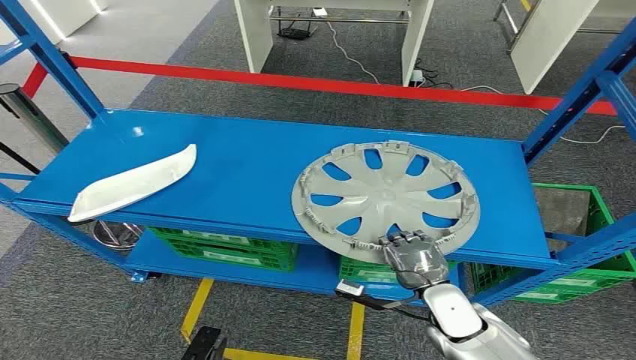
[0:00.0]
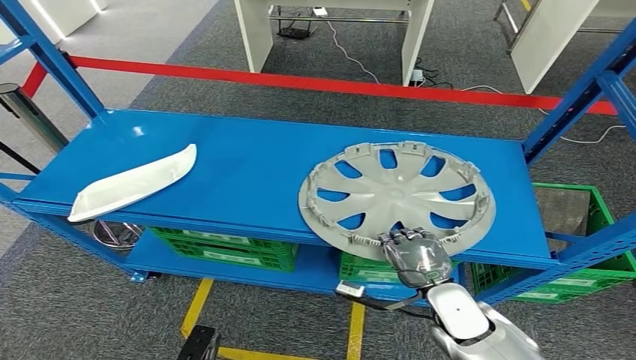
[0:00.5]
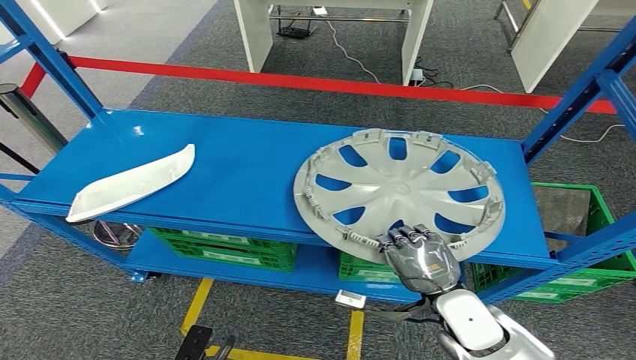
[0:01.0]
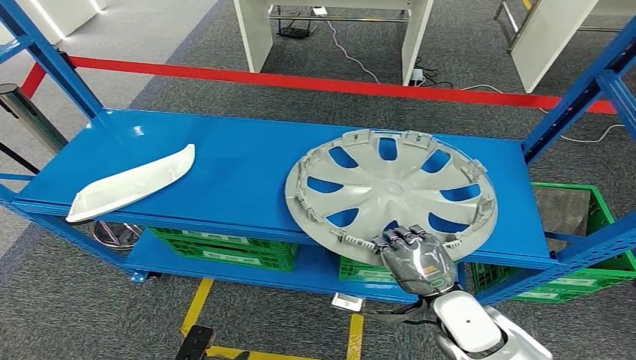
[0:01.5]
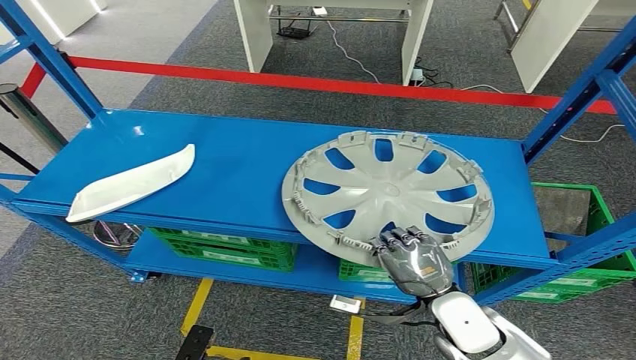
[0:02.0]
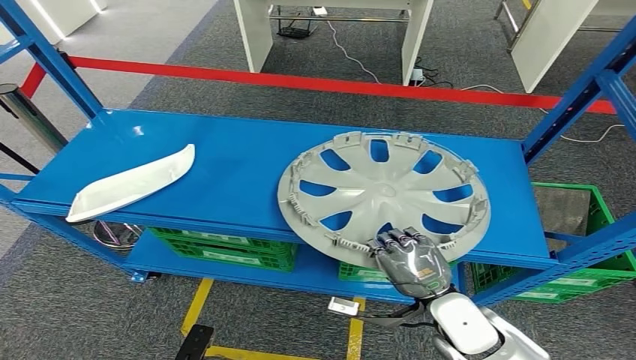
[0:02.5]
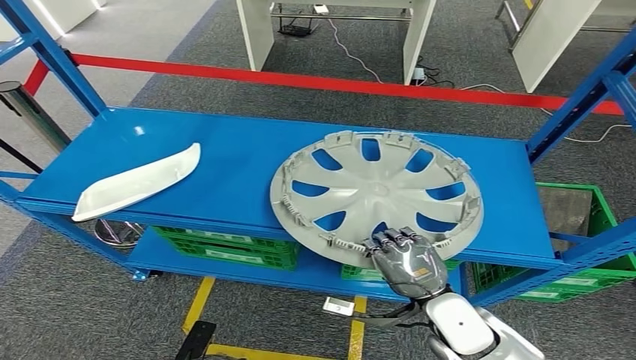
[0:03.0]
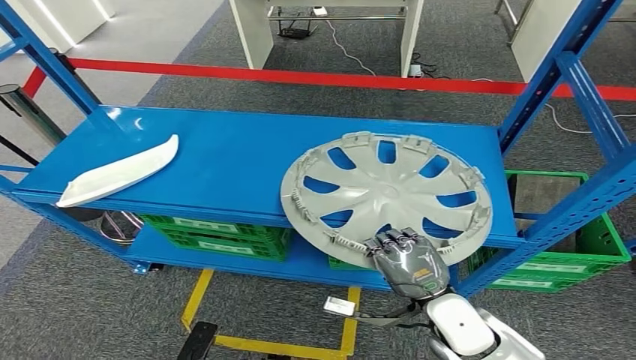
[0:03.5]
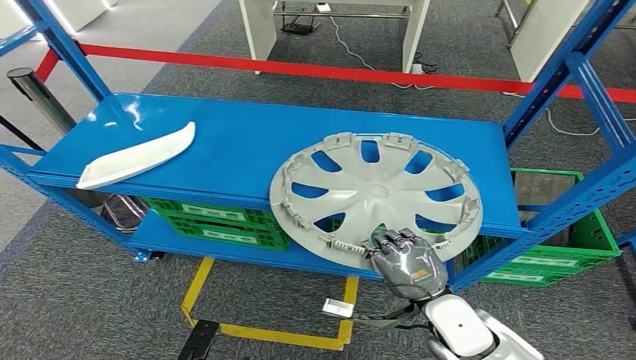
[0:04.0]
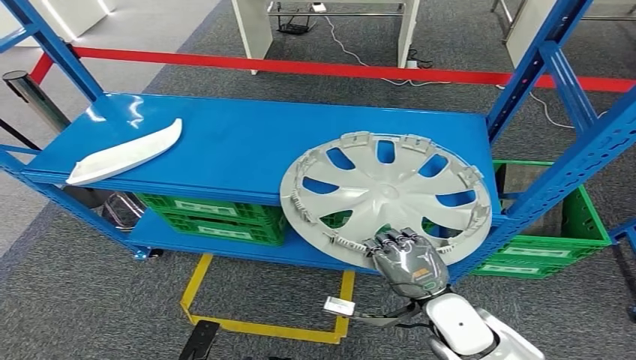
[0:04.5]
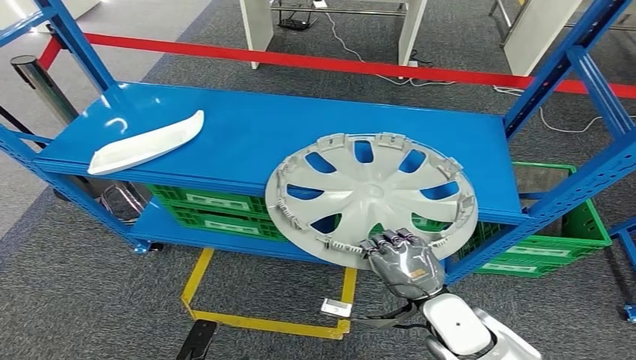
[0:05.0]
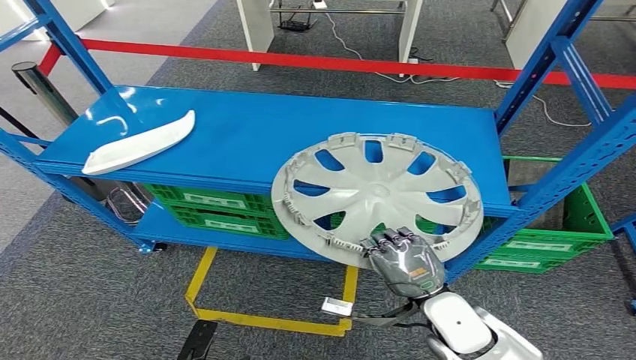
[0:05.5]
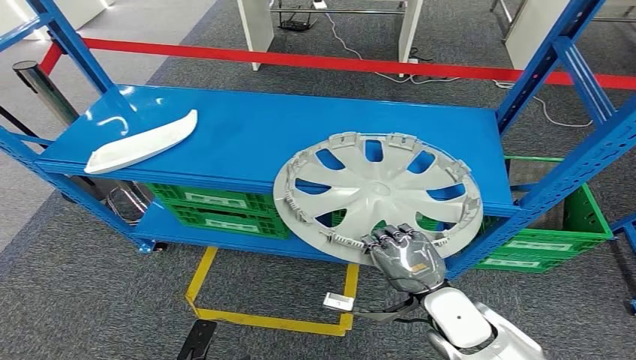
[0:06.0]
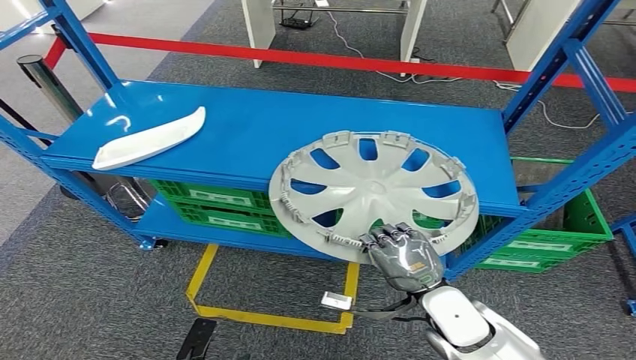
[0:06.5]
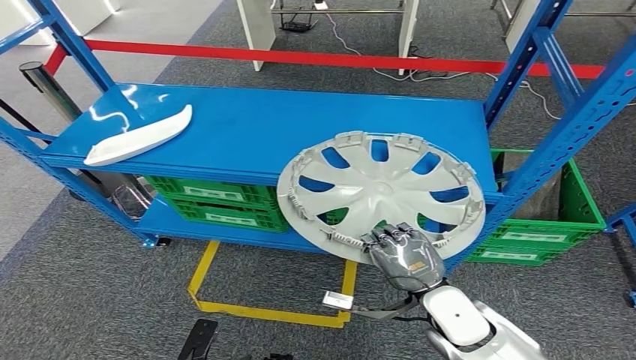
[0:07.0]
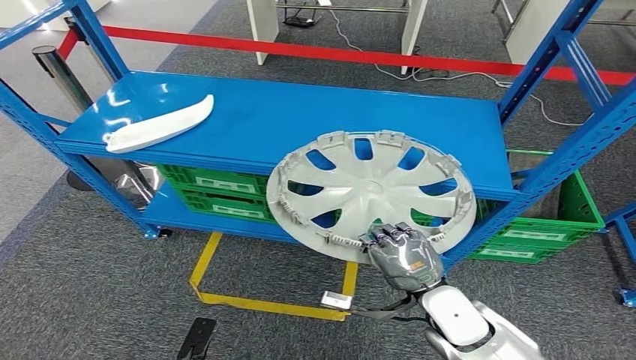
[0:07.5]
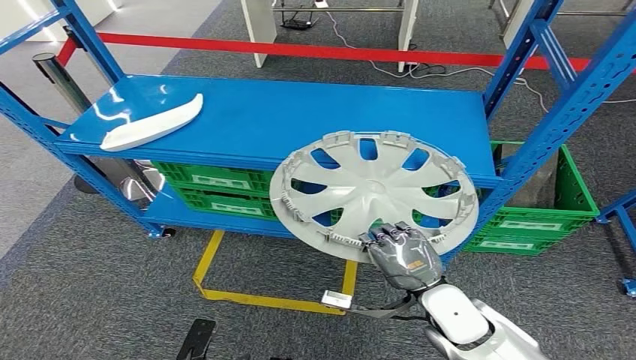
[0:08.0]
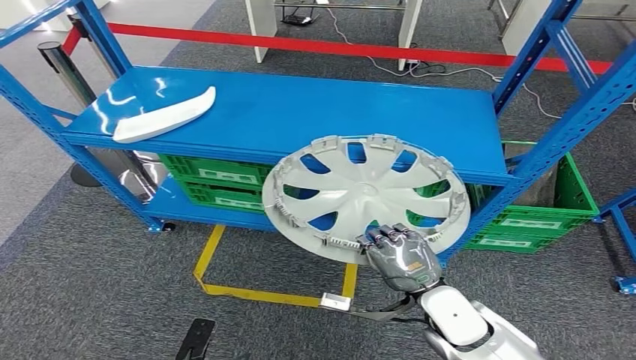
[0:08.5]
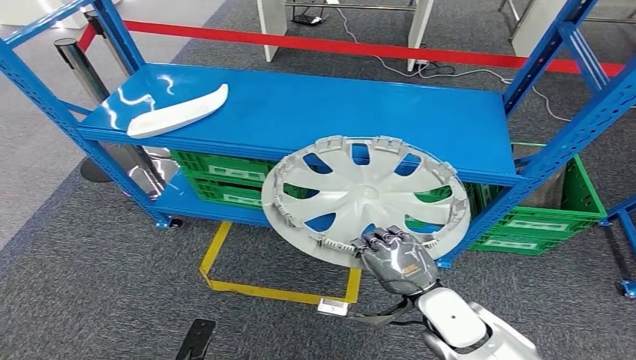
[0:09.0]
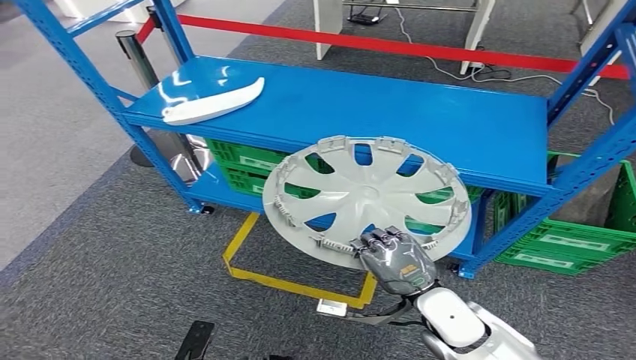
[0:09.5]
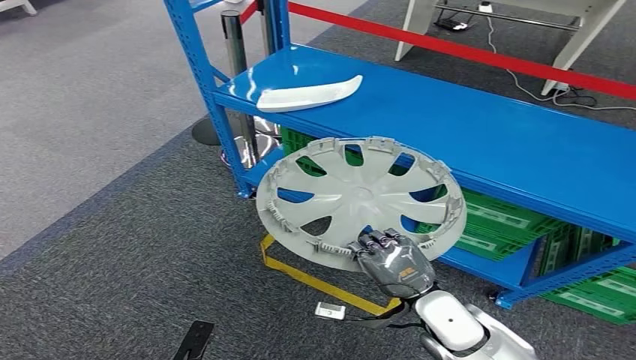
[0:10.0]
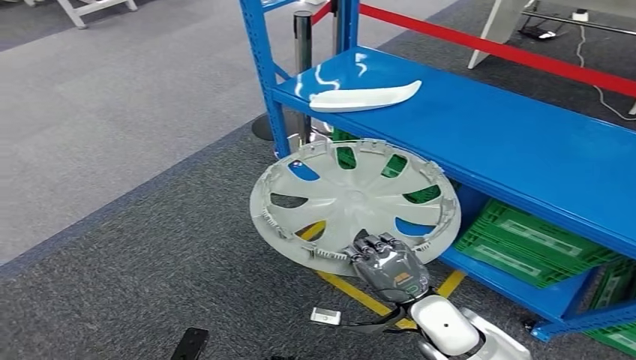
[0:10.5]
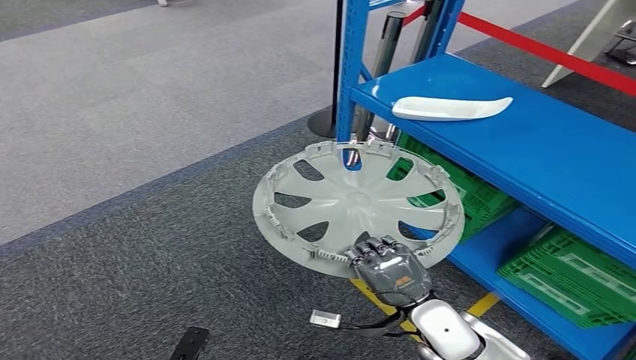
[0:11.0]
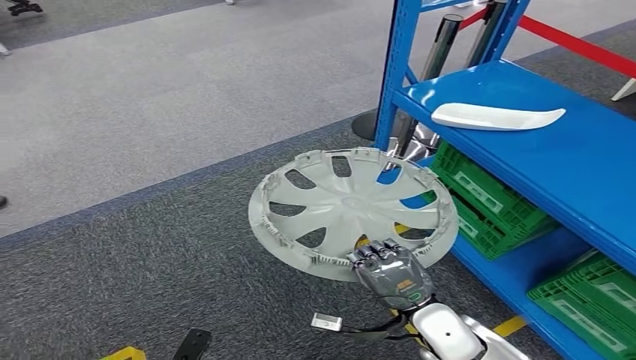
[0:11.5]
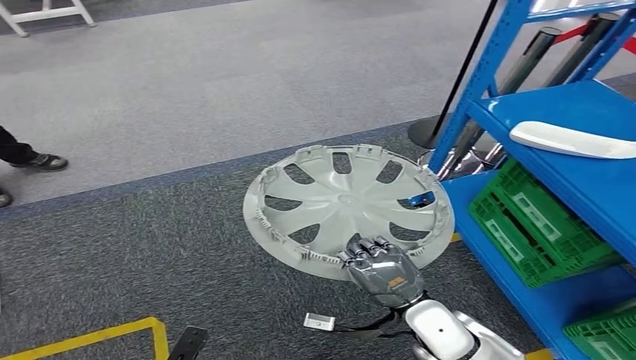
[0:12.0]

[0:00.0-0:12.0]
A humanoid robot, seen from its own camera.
Step, 0:00.0 to 0:11.5: Take small components from the rack.

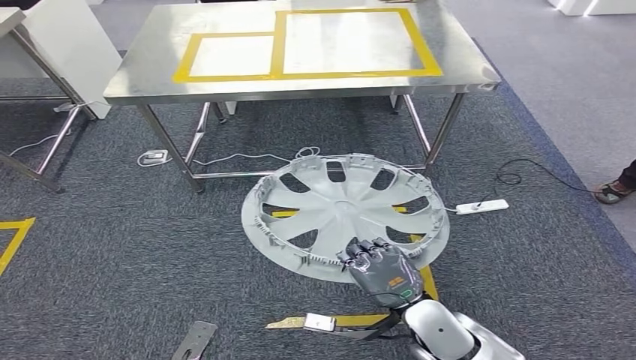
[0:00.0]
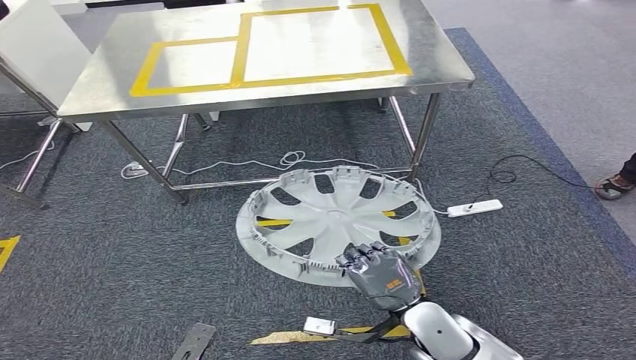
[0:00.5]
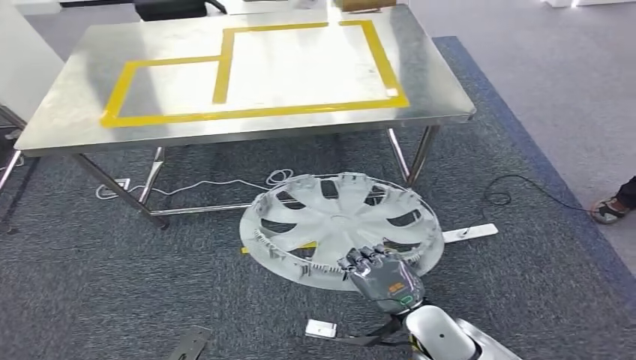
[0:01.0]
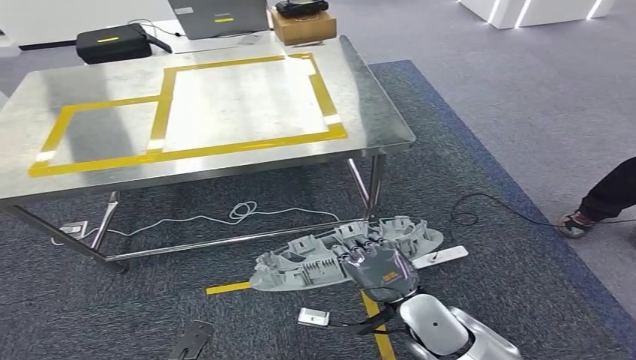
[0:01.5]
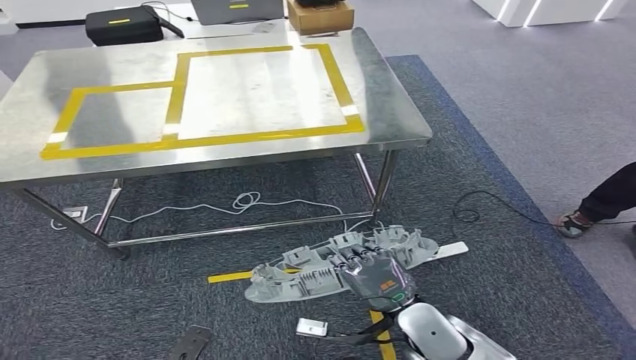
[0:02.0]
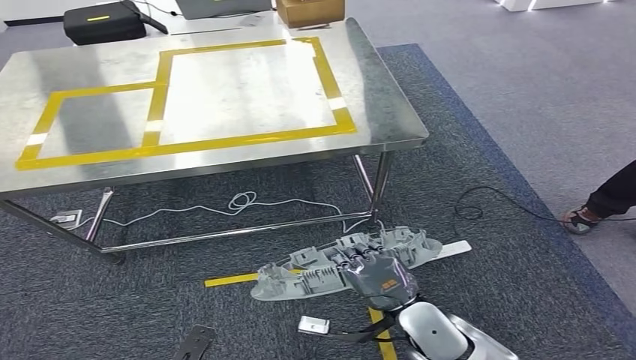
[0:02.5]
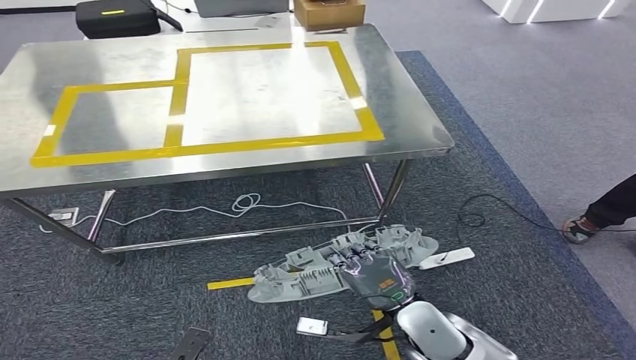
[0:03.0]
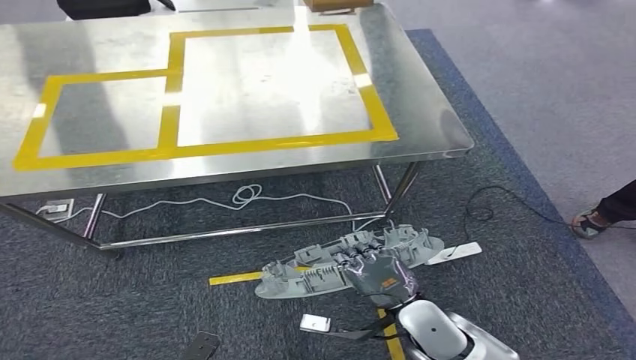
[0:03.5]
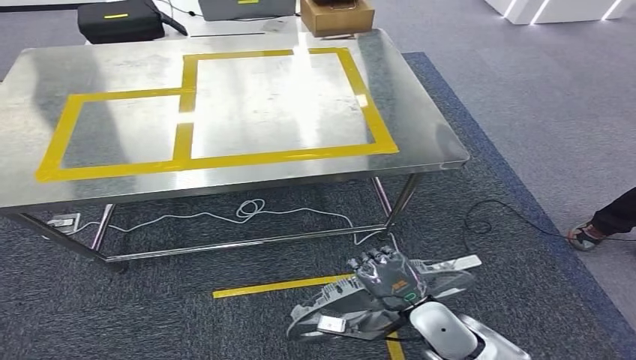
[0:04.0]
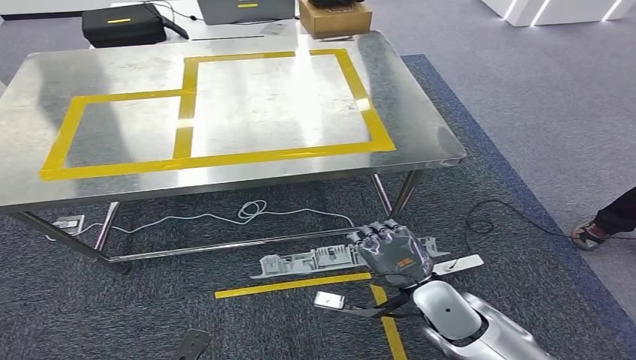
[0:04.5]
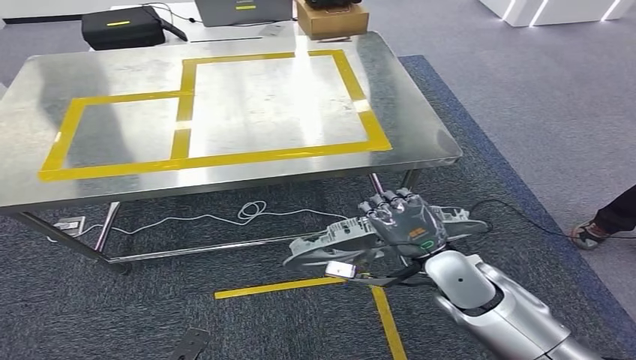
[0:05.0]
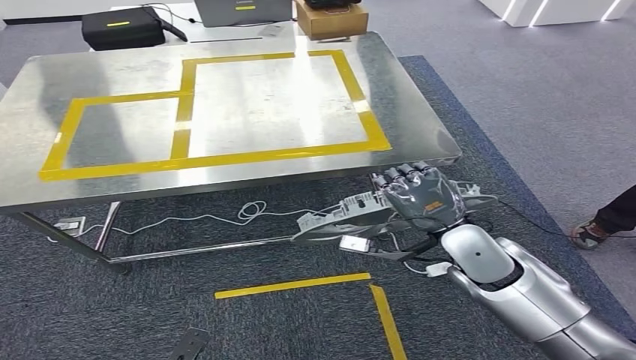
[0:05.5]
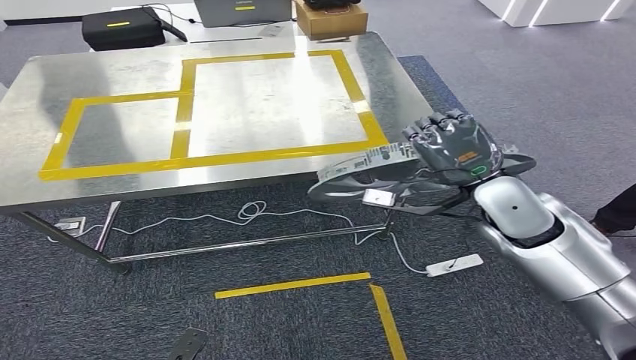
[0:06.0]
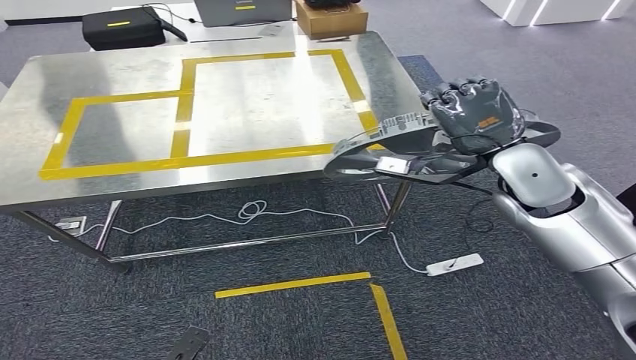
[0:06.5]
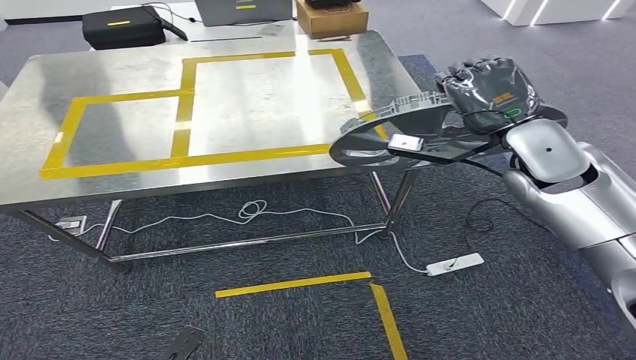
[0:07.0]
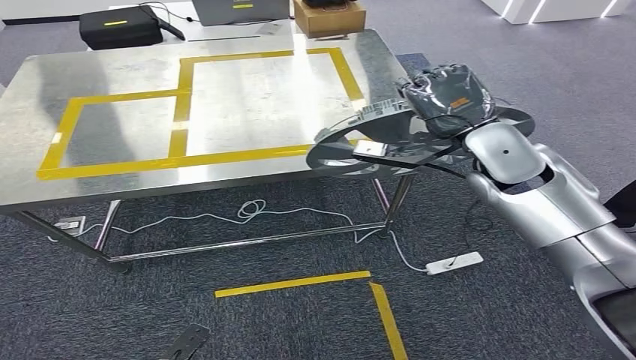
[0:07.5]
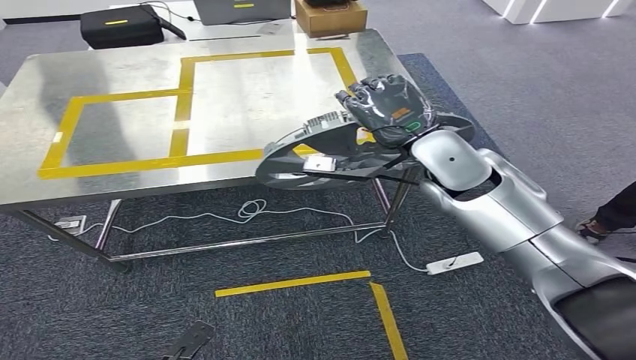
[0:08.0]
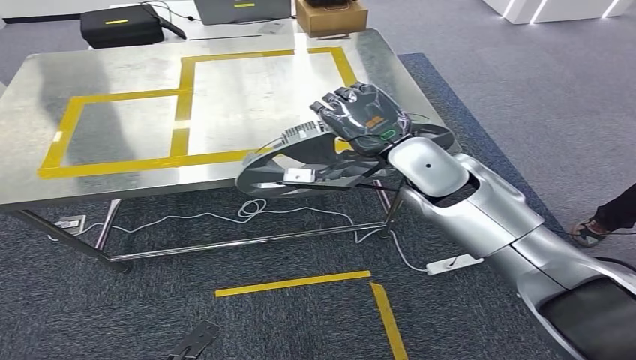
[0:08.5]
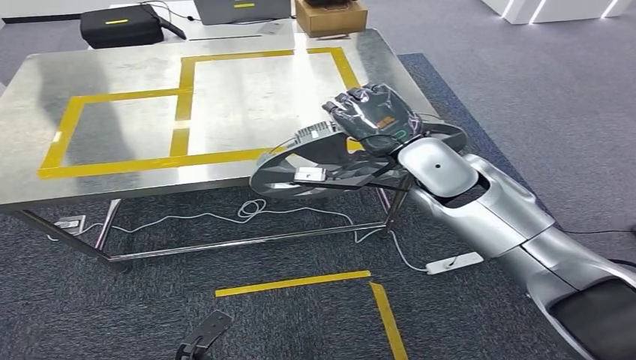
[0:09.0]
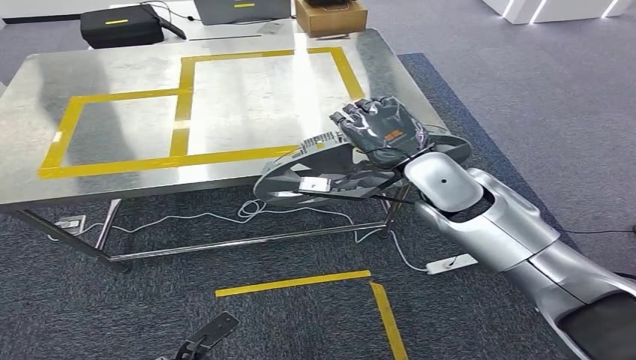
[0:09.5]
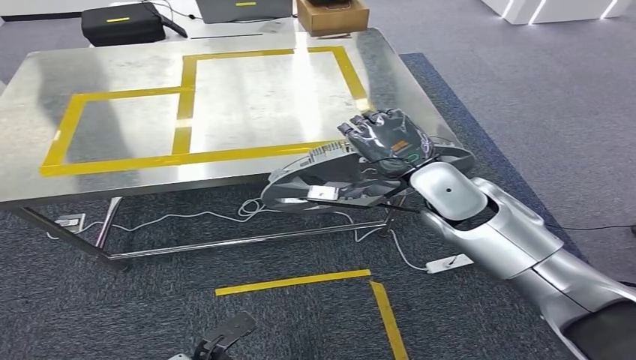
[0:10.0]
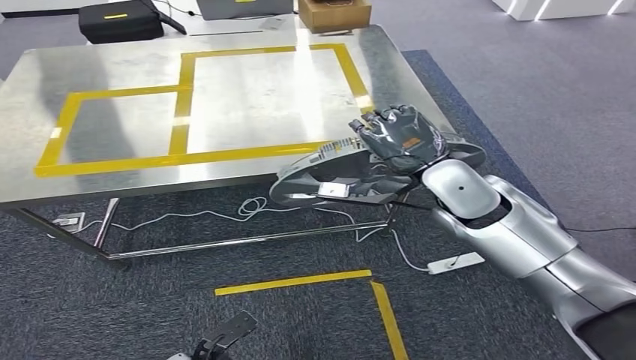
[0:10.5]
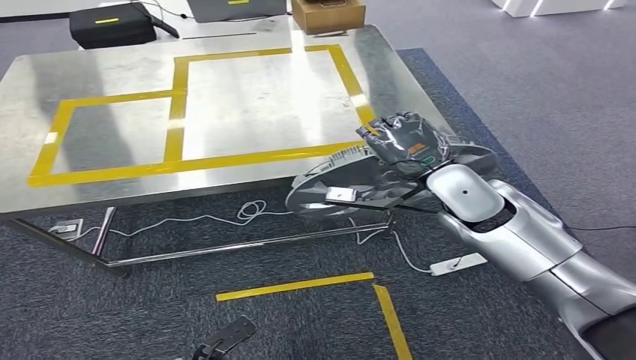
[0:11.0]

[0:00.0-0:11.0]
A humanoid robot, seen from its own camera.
Step, 0:00.0 to 0:10.5: Move the small parts to the workbench.
0:07.5 to 0:09.0: The right hand is displaced to the left by some 5 cm.
